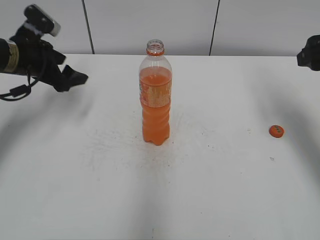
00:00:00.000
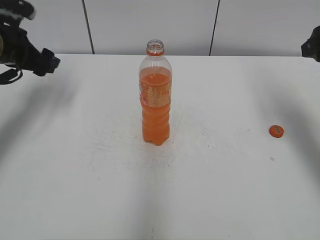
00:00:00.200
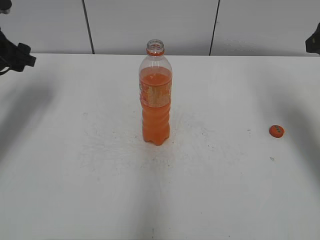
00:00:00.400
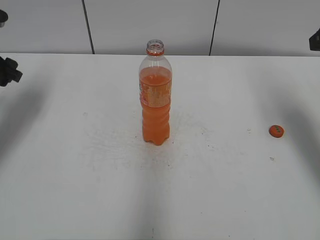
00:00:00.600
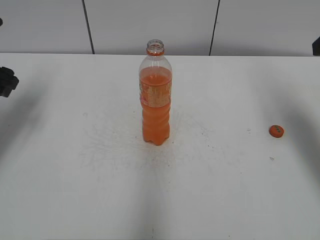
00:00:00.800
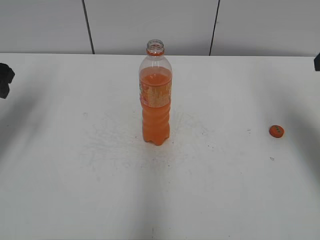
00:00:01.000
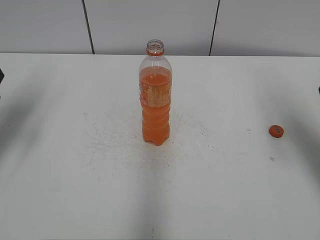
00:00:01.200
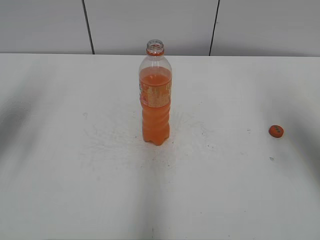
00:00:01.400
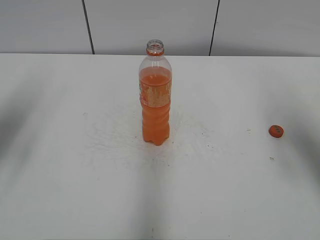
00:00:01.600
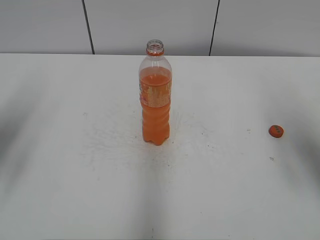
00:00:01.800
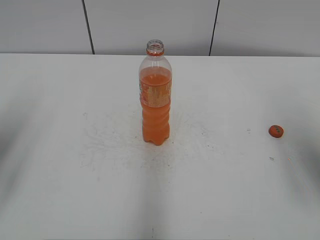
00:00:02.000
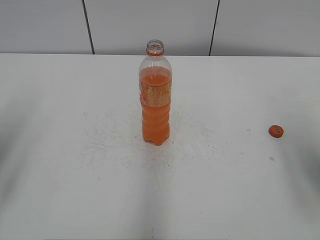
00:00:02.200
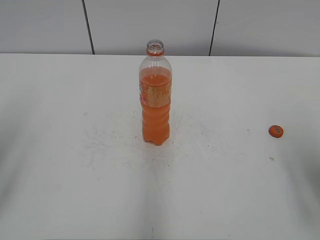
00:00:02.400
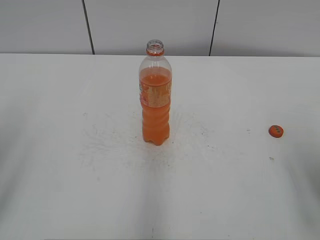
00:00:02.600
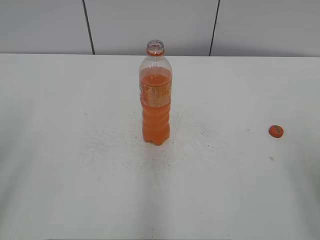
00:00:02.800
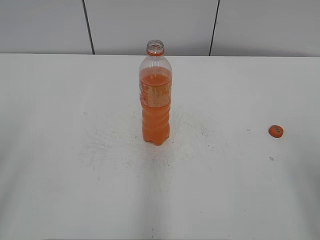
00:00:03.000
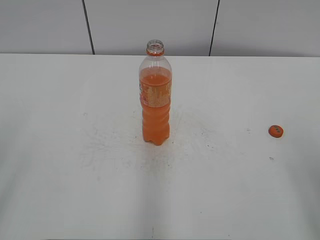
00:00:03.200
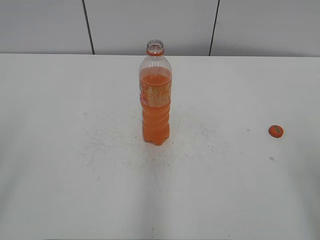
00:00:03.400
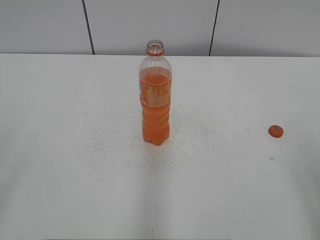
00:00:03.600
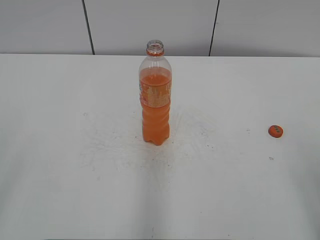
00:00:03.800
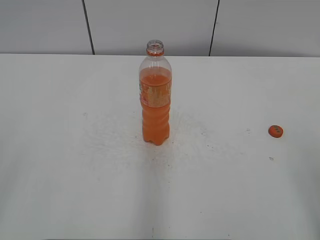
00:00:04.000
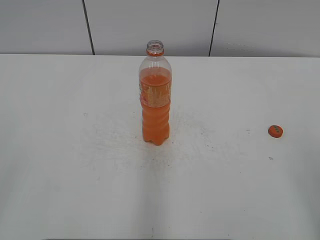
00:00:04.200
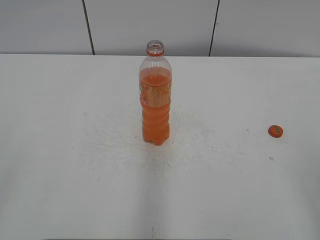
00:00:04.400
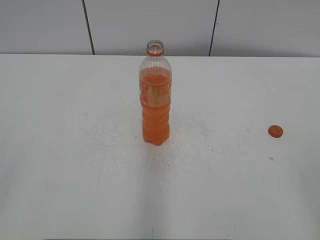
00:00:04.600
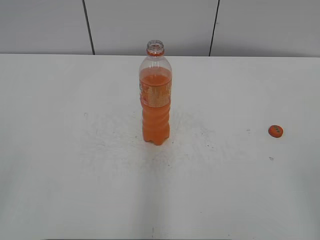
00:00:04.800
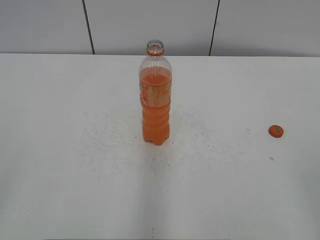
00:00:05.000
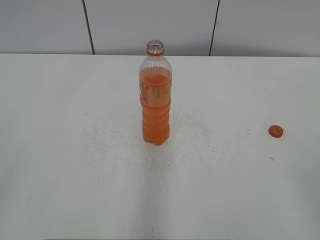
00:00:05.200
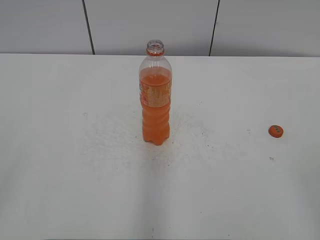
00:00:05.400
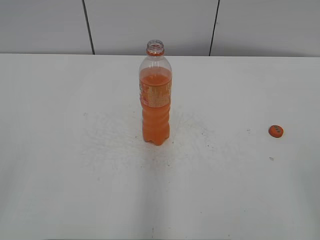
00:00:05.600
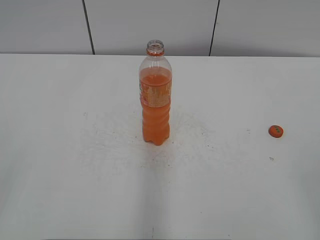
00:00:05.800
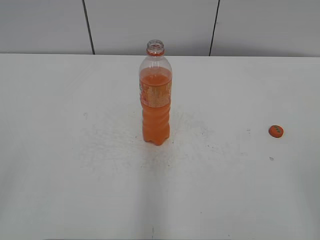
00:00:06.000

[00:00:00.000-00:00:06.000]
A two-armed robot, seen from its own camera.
00:00:00.000 to 00:00:01.600: The right gripper heads backward, covering some 10 cm. The left gripper moves backward, upward and to the left, roughly 20 cm.
00:00:01.600 to 00:00:03.000: Both grippers move backward, approximately 15 cm.

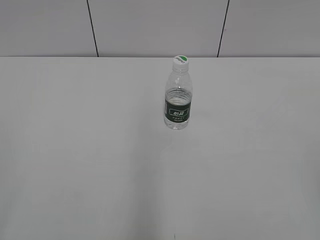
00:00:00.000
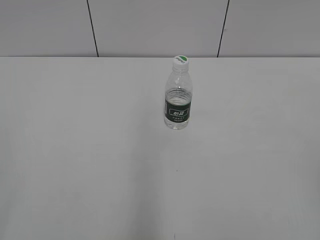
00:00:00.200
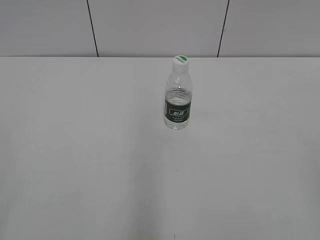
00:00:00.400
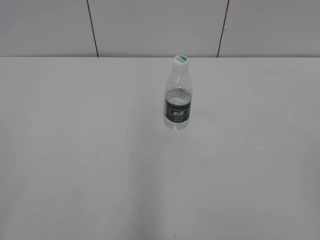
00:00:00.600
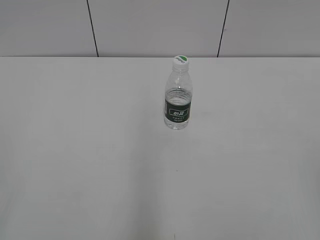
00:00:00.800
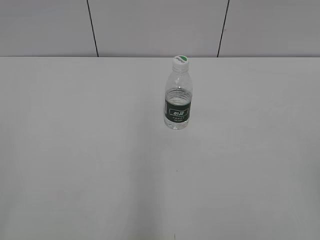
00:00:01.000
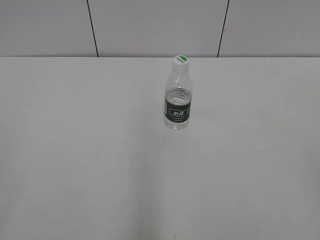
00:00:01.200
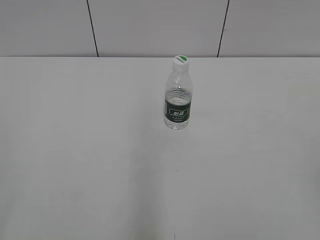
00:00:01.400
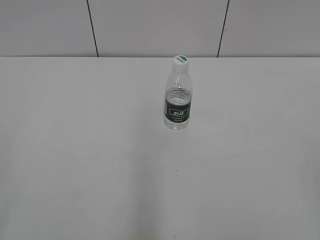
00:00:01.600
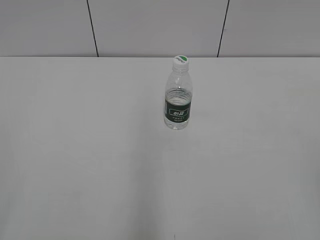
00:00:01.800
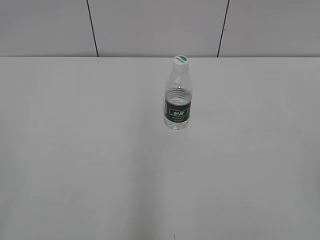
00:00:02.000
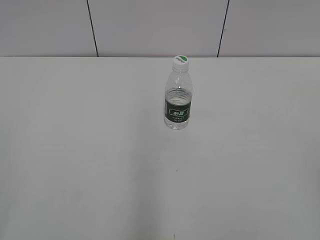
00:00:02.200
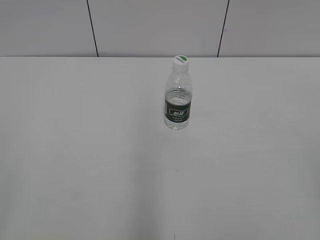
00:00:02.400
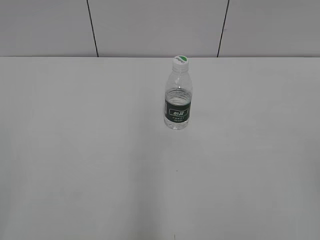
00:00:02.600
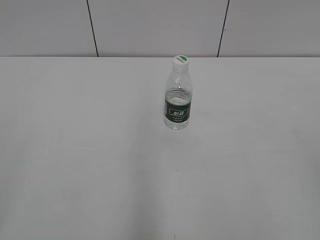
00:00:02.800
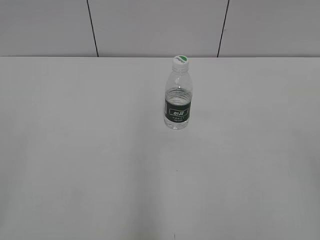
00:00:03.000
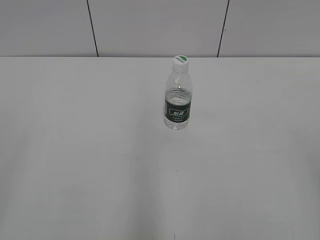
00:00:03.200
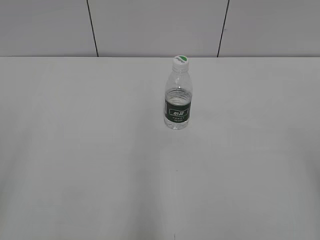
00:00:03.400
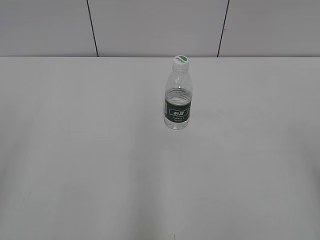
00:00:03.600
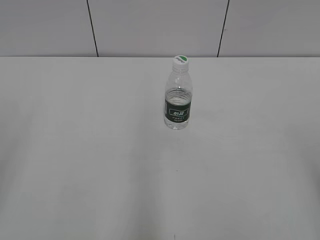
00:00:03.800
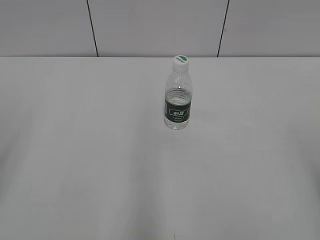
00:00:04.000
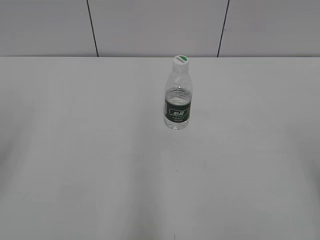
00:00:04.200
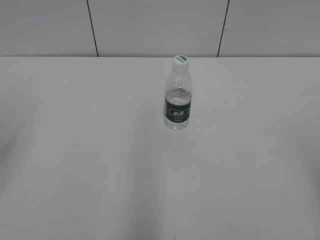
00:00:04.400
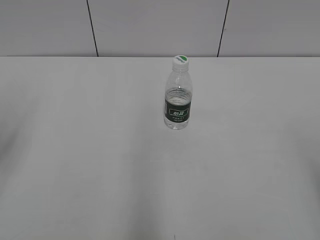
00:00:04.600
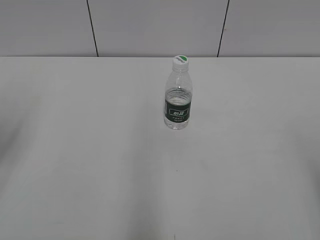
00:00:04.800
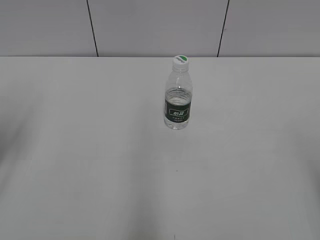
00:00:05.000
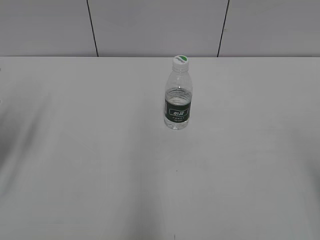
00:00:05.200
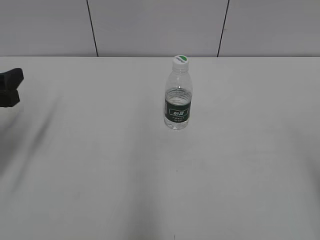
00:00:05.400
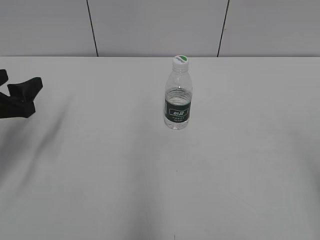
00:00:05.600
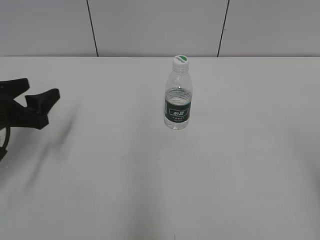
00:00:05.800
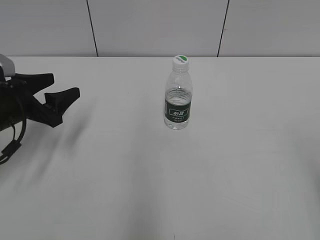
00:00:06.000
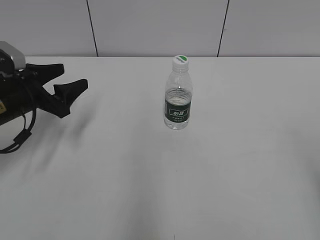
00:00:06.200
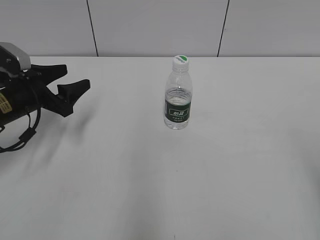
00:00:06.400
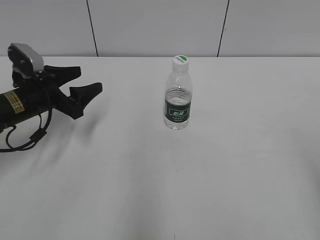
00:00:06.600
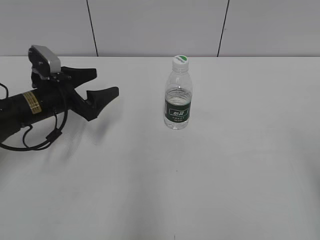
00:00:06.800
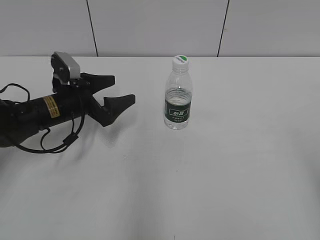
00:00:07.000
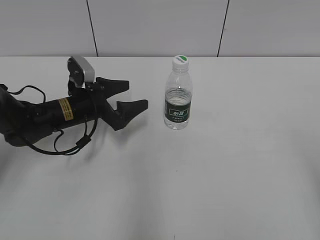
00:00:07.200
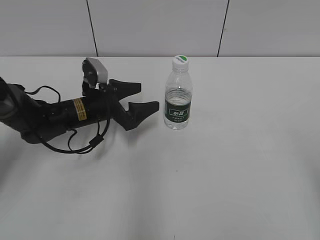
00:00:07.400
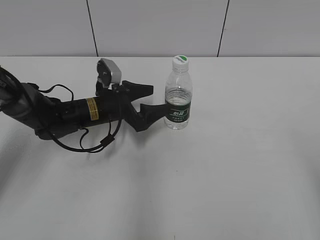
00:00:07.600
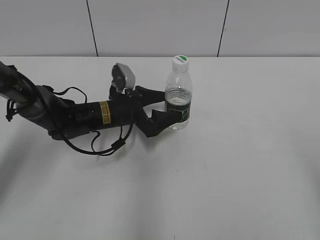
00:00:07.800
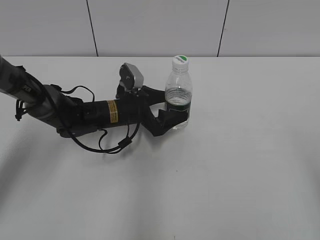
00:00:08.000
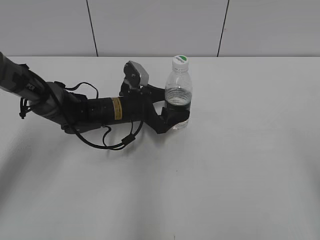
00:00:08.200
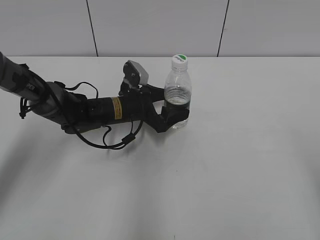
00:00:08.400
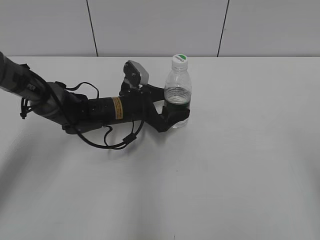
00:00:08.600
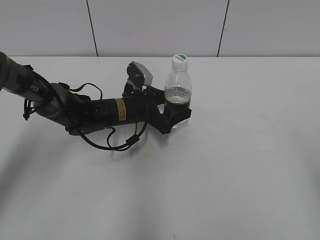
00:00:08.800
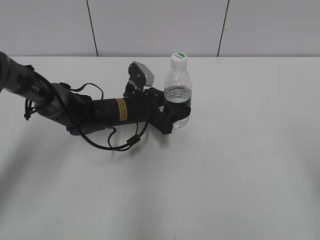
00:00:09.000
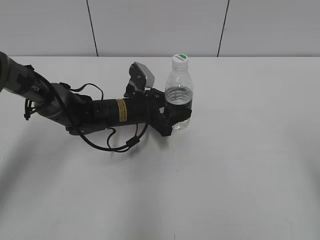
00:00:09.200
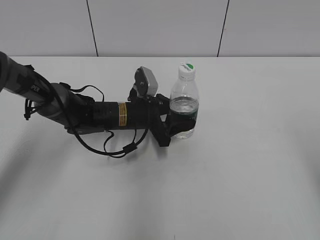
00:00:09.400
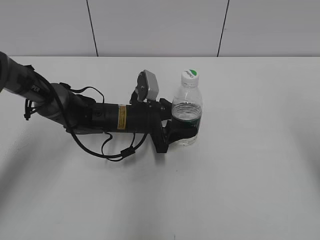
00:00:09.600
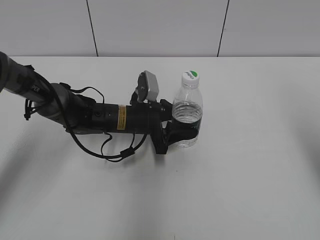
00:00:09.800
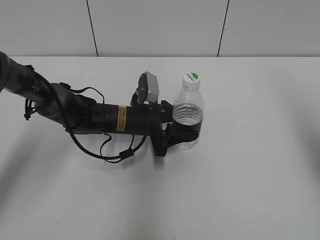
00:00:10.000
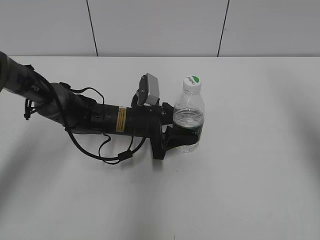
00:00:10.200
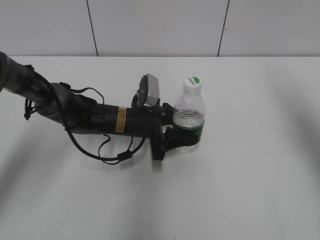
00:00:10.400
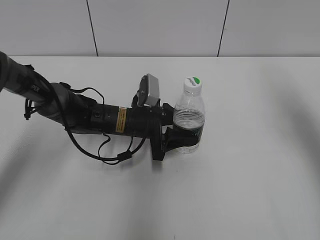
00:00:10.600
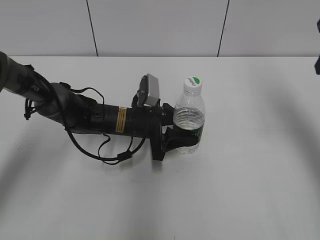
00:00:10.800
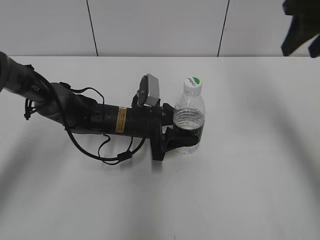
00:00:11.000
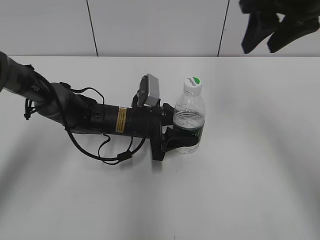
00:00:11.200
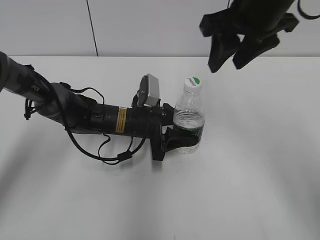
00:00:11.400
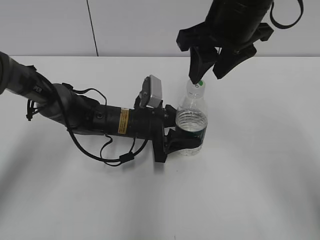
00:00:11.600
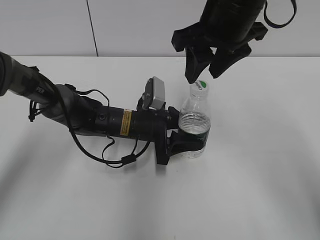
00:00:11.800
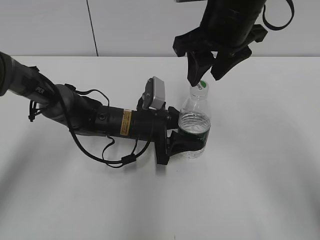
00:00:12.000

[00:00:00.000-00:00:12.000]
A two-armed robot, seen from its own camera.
Step, 00:00:00.000 to 00:00:10.600: Grasp the bottle and move it to the center of the table with the left gripper.
00:00:04.400 to 00:00:06.000: The left gripper is displaced downward and forward by about 20 cm.
00:00:06.000 to 00:00:07.600: The left gripper is displaced to the right, forward and downward by approximately 20 cm.
00:00:07.600 to 00:00:09.000: The left gripper is displaced to the right by approximately 5 cm, and closes up.
00:00:09.000 to 00:00:10.400: The right gripper heads forward, covering about 20 cm.
00:00:10.400 to 00:00:12.000: The right gripper moves to the left, approximately 25 cm, and closes its fingers.

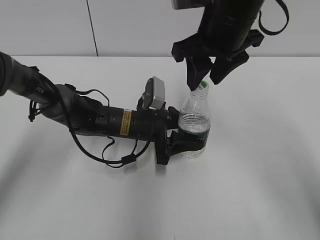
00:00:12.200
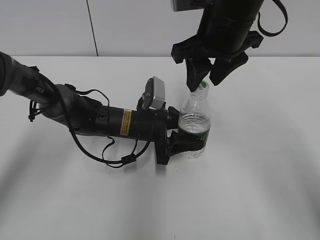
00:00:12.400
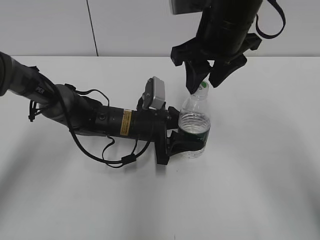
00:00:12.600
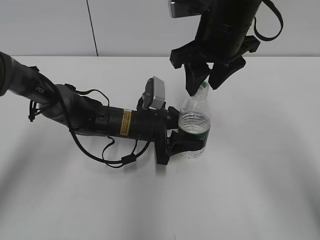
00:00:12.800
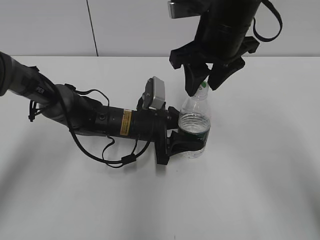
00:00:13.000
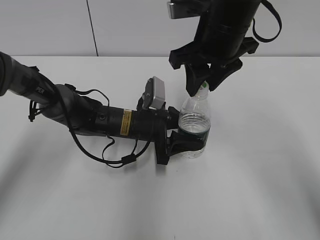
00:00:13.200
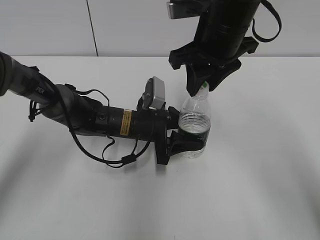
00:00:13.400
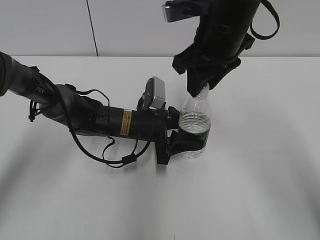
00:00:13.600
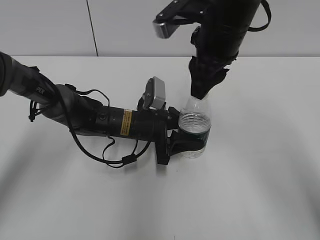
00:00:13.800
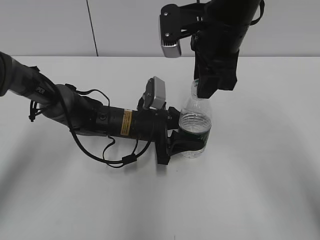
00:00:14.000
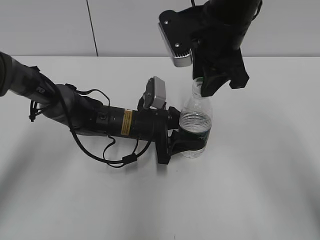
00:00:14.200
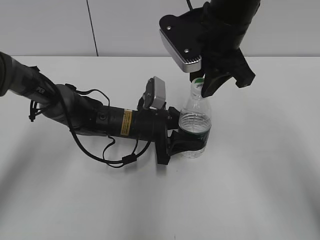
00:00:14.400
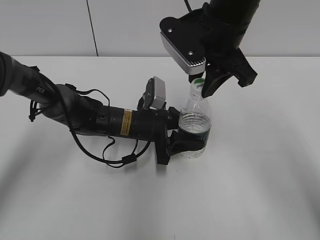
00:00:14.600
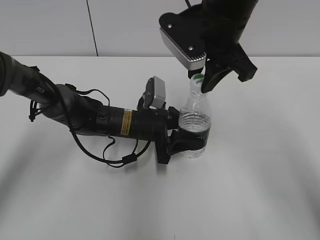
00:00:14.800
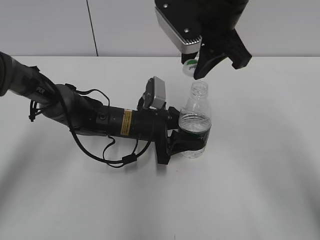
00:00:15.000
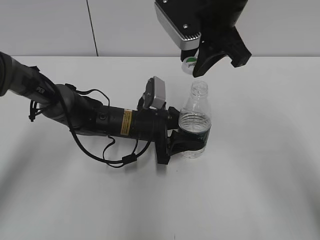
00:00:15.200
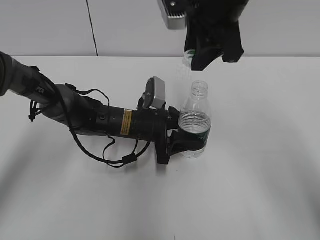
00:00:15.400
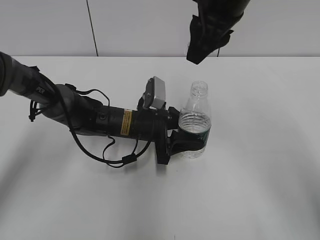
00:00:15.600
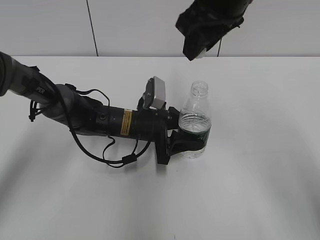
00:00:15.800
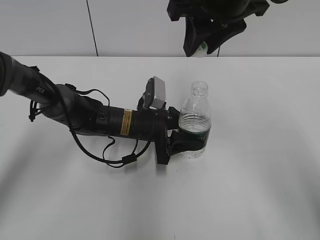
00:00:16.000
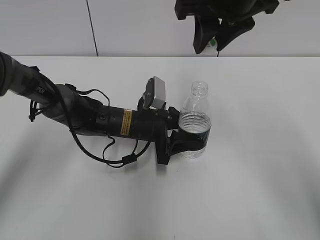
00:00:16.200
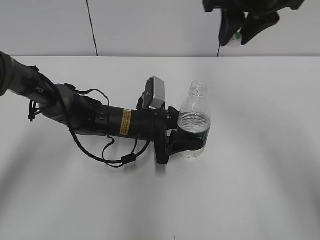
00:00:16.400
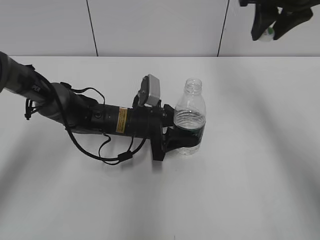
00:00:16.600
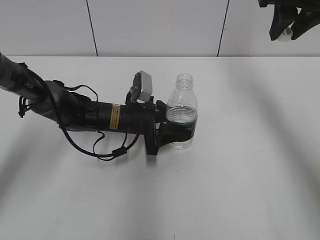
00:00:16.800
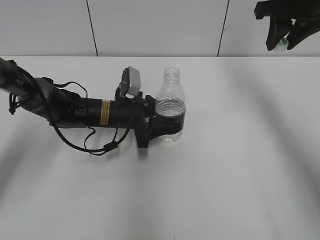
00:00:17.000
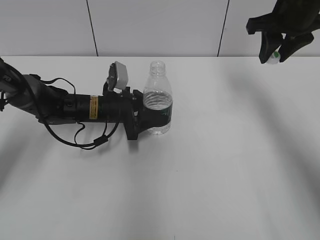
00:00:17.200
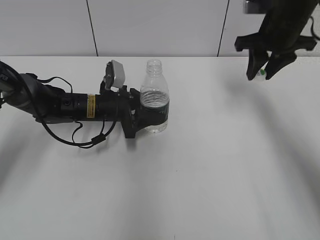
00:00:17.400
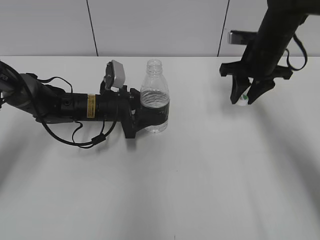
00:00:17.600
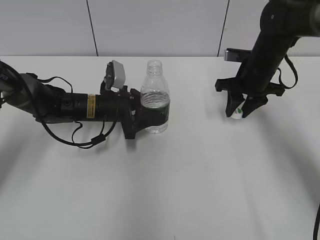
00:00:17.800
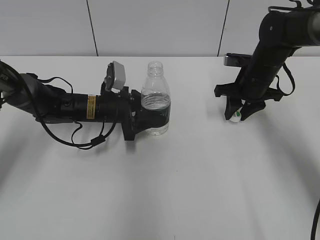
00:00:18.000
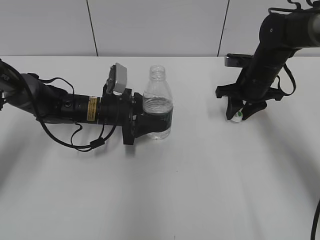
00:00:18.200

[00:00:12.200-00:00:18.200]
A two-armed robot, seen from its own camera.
Step, 00:00:12.200 to 00:00:15.200: Unscrew the bottle cap with the right gripper while holding the bottle with the left gripper.
00:00:12.200 to 00:00:13.800: The right gripper closes.
00:00:15.200 to 00:00:16.600: The right gripper goes roughly 10 cm to the right.
00:00:16.600 to 00:00:18.200: The left gripper is displaced to the left by about 5 cm; the right gripper goes roughly 20 cm downward.
